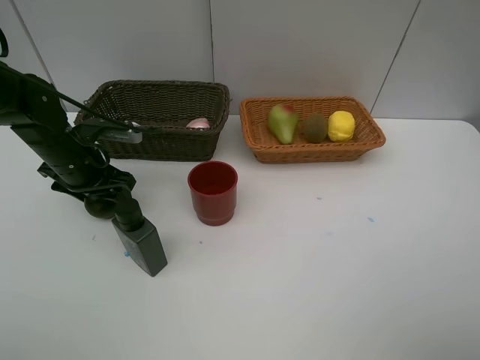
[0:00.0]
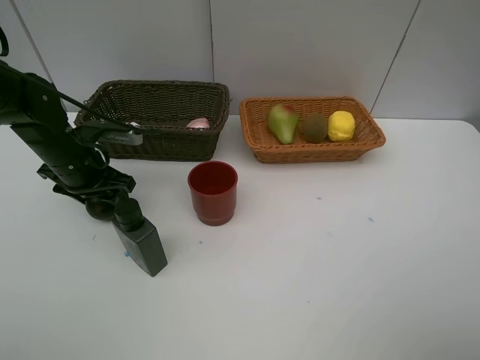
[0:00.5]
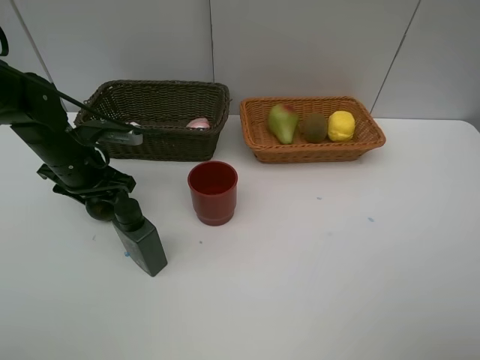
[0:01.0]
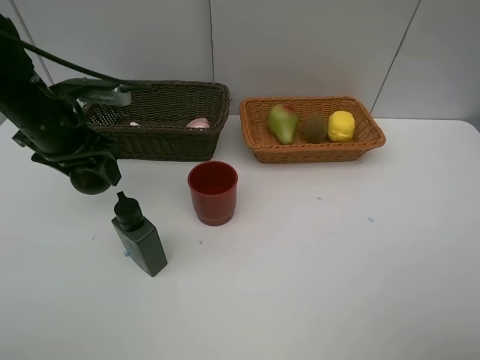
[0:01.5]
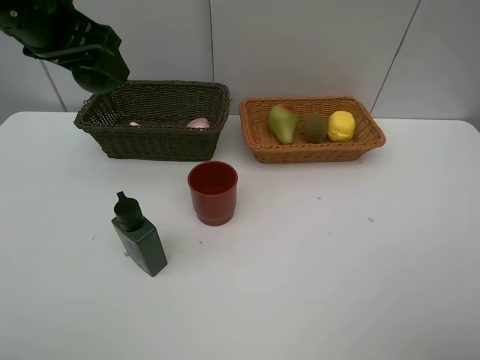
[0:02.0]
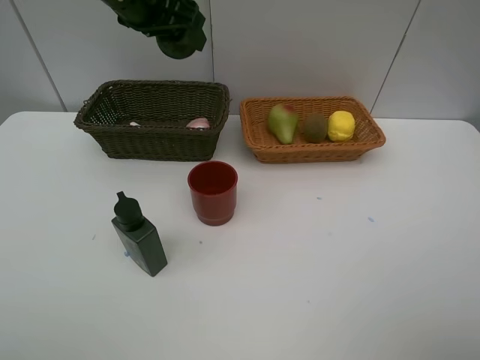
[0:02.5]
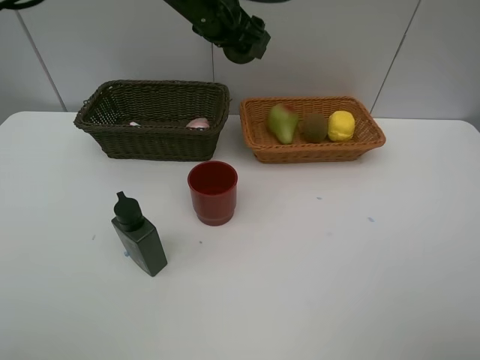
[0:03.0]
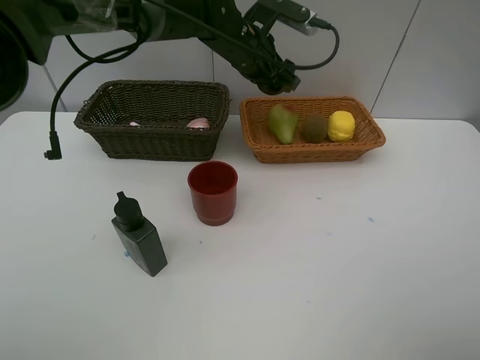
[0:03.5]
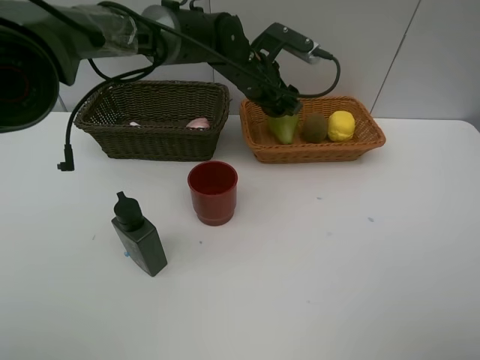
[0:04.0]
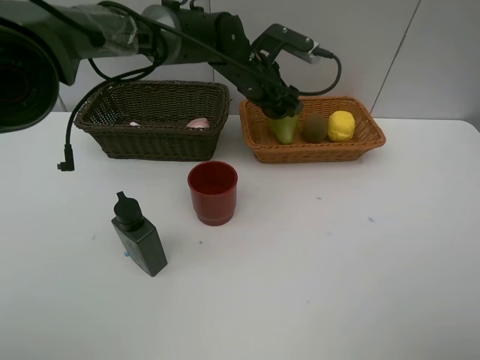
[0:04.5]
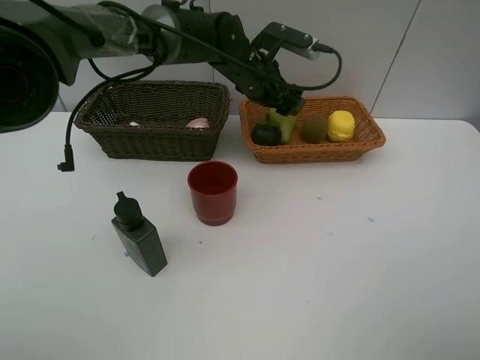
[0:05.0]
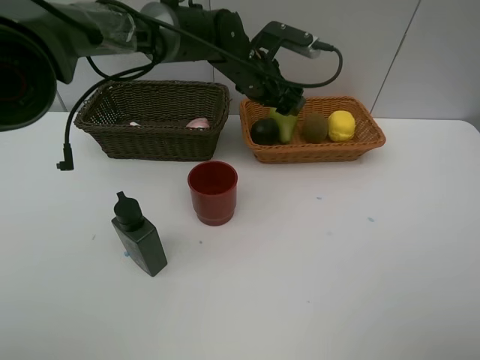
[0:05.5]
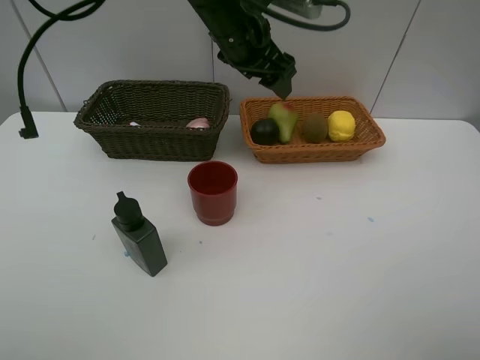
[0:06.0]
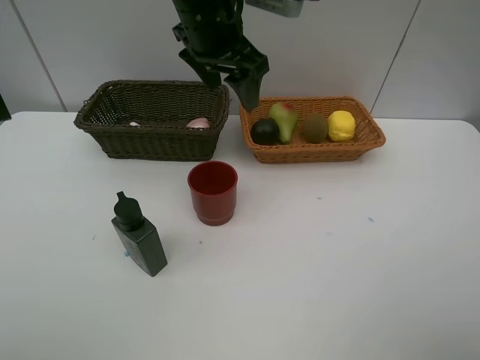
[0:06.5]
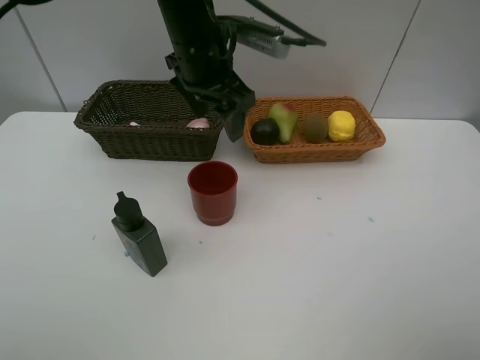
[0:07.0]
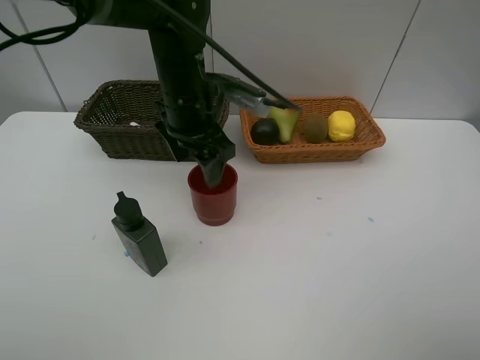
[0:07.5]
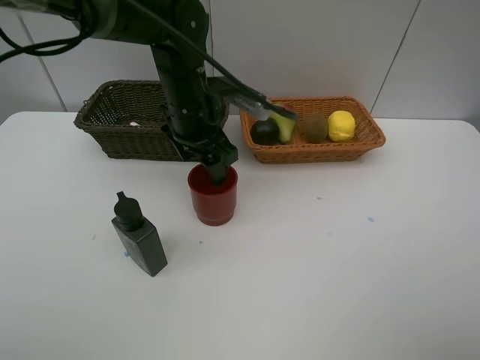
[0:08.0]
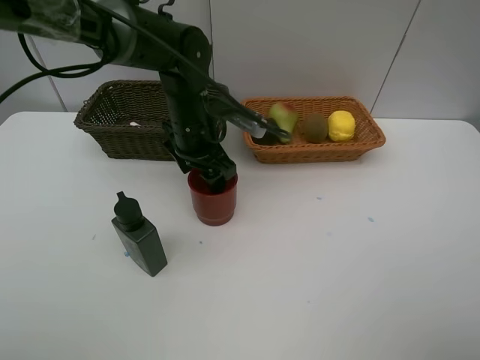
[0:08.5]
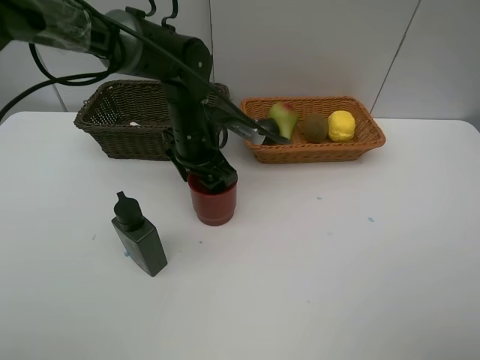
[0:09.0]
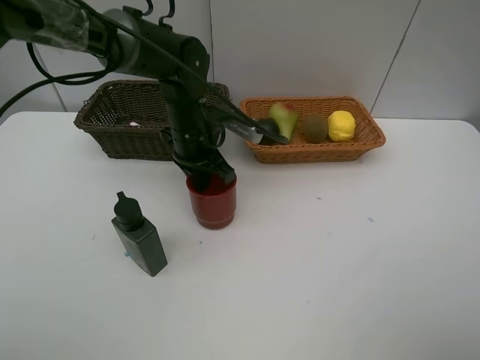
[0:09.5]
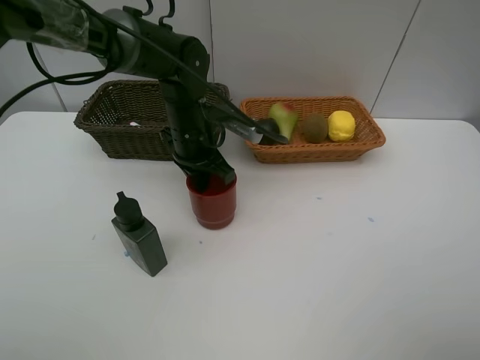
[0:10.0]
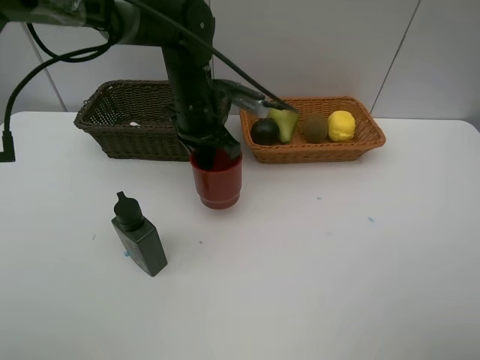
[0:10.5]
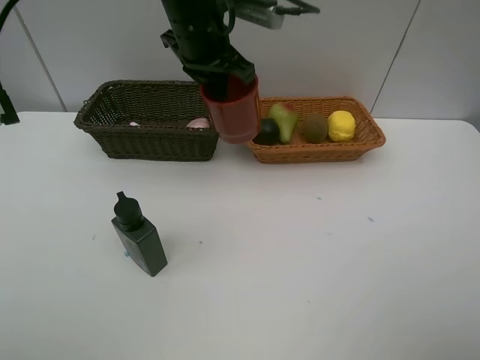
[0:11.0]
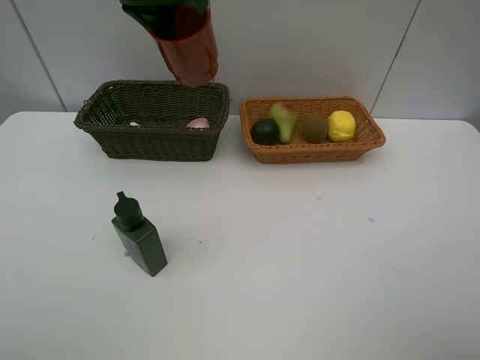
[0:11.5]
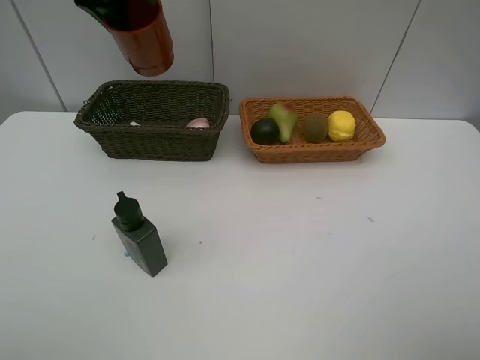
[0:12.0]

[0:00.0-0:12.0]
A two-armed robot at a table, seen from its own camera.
Task of the whole recording: Place multiple objects separately in different baskets.
Step, 0:01.5 to 0:05.0: Place the mangosteen in the light basket with left gripper.
Step, 0:05.5 to 0:10.0: Pick up the dark brown cup with left gripper.
0:00.0 to 0:02.0: The left gripper goes approximately 20 cm upward.
0:02.0 to 0:04.0: The left gripper goes approximately 30 cm to the right, downward and forward.
0:04.0 to 0:06.0: The left gripper heads upward, covering some 10 cm.
0:06.0 to 0:08.0: The left gripper is displaced downward and to the left by roughly 10 cm.
0:08.0 to 0:10.0: The left gripper moves some 5 cm, and closes up.
0:10.0 to 0:12.0: The left gripper heads upward and to the left, covering about 25 cm.

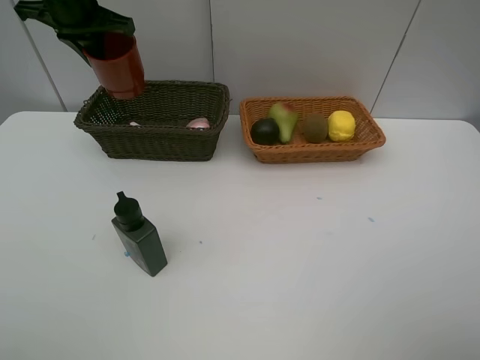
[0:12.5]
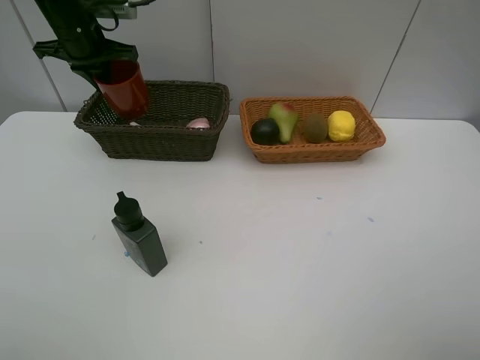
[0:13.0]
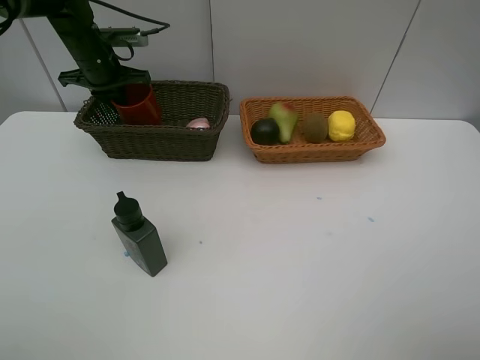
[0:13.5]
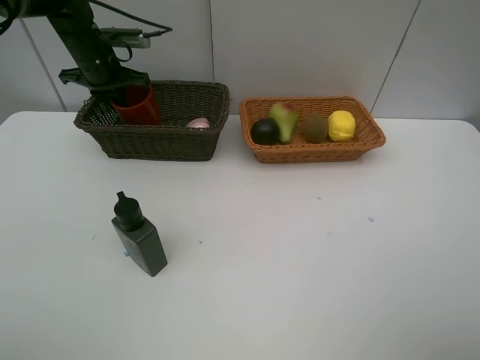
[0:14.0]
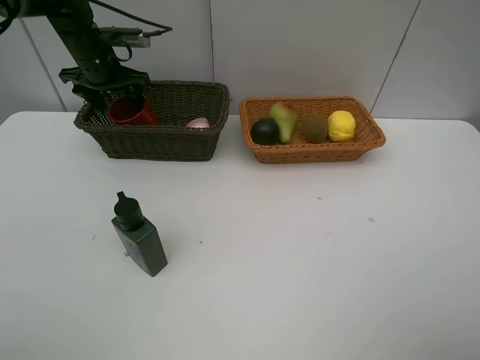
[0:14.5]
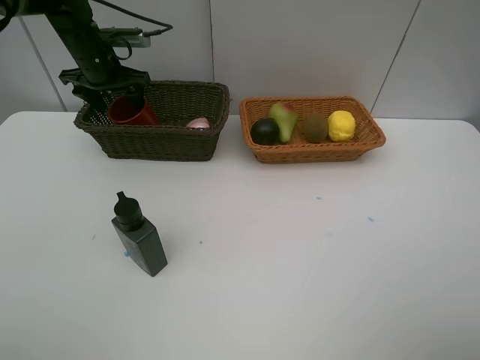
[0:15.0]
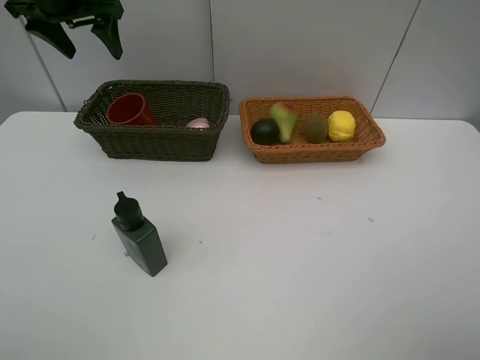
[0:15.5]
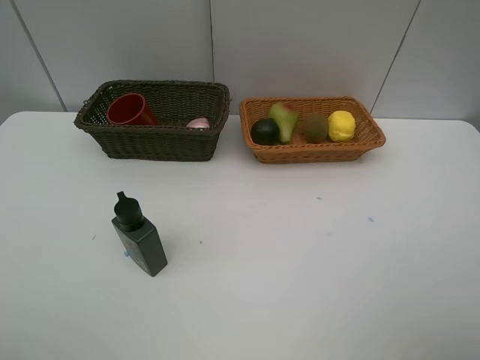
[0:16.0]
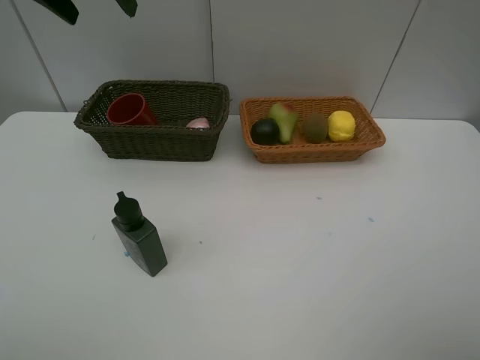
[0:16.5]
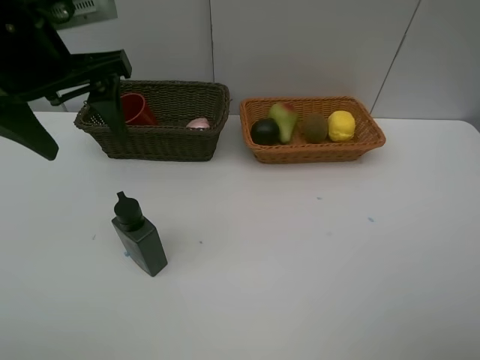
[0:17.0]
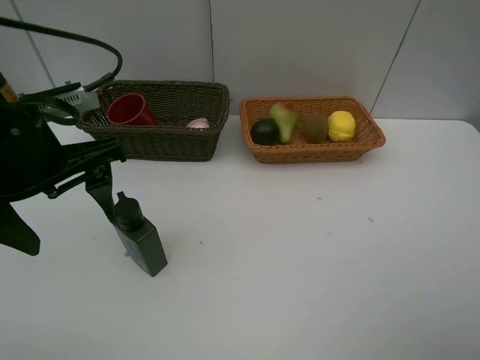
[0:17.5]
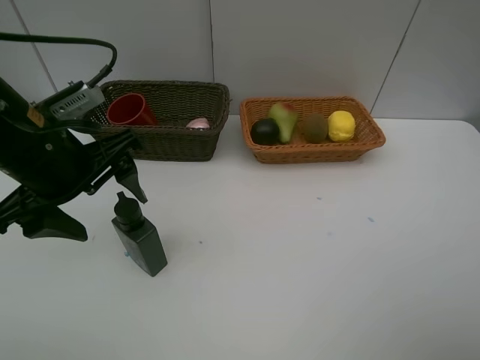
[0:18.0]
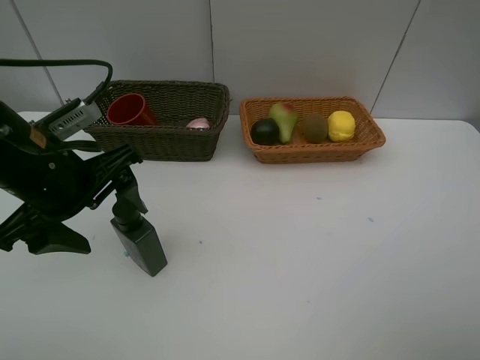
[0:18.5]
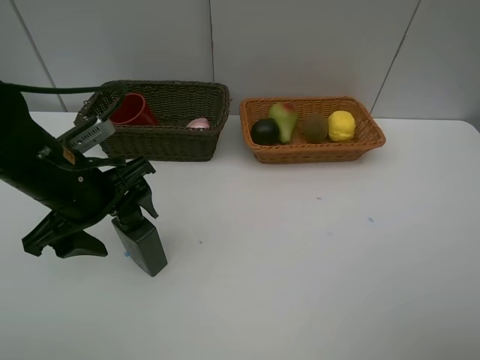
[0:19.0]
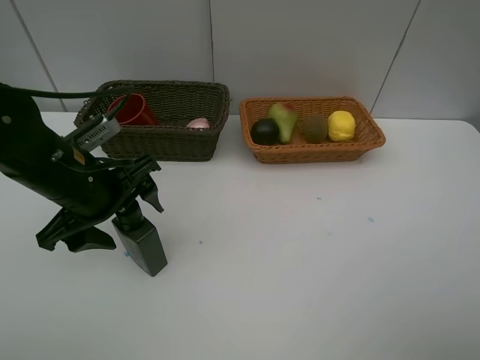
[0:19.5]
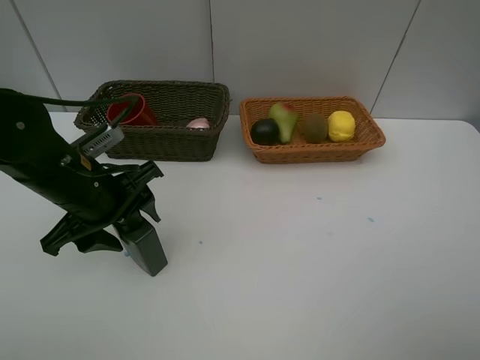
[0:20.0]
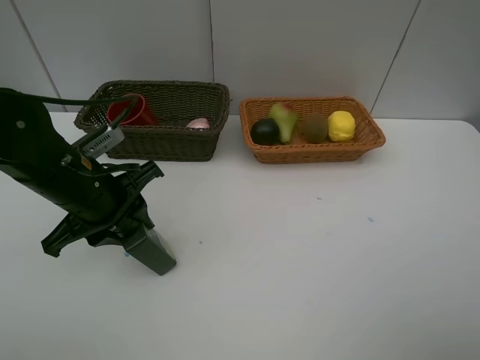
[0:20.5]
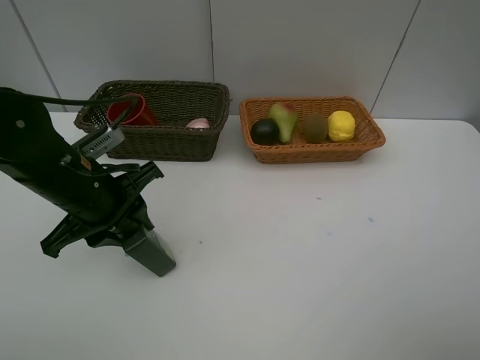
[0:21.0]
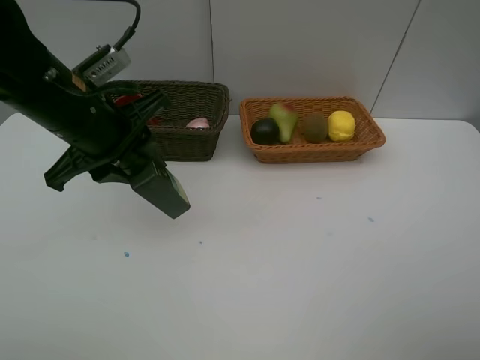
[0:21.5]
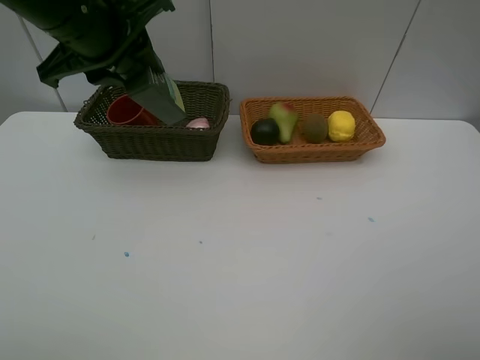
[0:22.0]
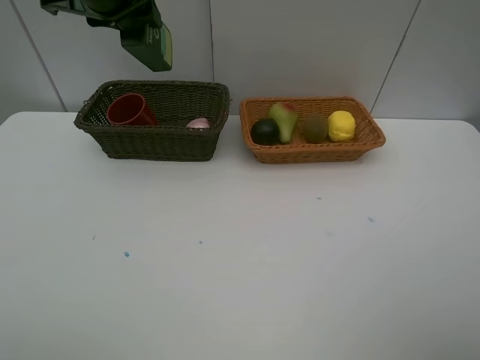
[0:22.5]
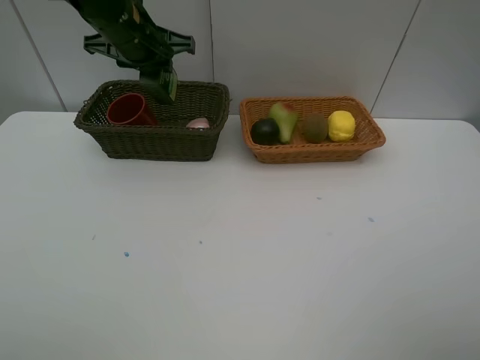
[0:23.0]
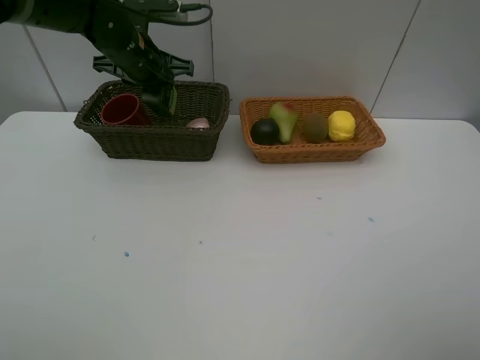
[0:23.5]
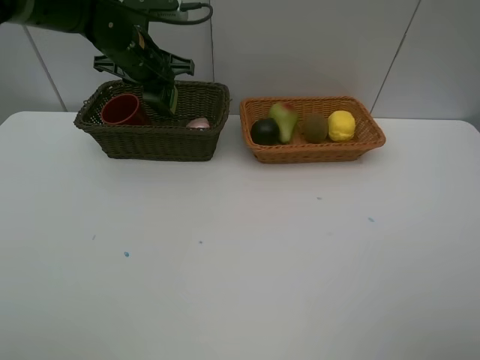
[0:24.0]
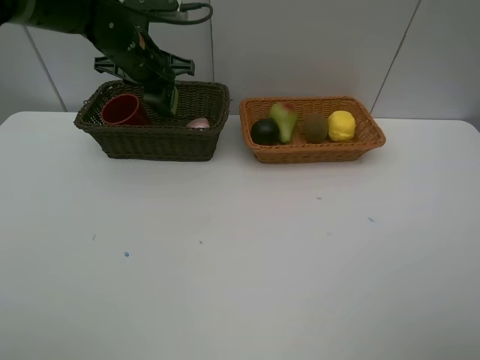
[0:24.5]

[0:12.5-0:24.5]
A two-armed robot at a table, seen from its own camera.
Task of the whole recording: Place multiple objects separately in different baskets.
Step, 0:12.5 to 0:15.0: Place the dark brown cup in the dark basket with left gripper.
Step, 0:15.5 to 0:21.0: Pick up the hard facial cleanser with left gripper.
0:12.5 to 0:14.5: The left gripper shifts approximately 10 cm downward, and opens its fingers.
0:14.5 to 0:16.5: The left gripper goes about 25 cm upward and backward.
0:16.5 to 0:18.5: The left gripper shifts about 25 cm downward and backward.
0:18.5 to 0:20.5: The left gripper goes approximately 5 cm downward, and closes up.
0:20.5 to 0:22.5: The left gripper goes about 20 cm upward and forward.
0:22.5 to 0:24.5: The left gripper heads downward and forward, covering approximately 15 cm.

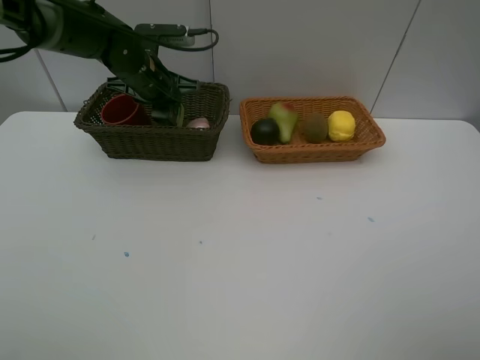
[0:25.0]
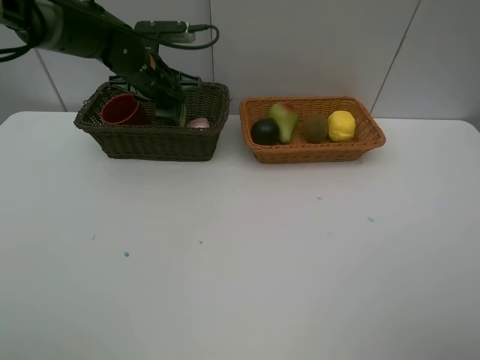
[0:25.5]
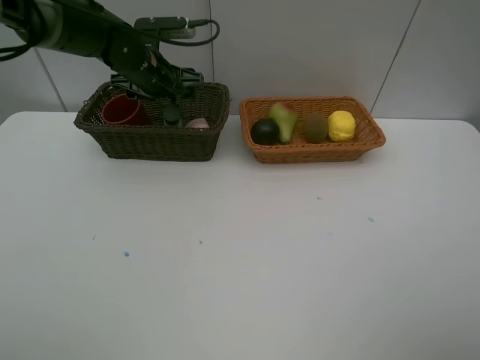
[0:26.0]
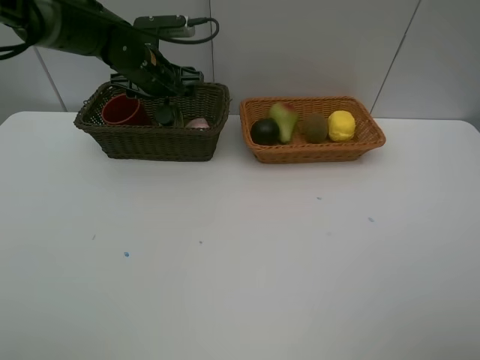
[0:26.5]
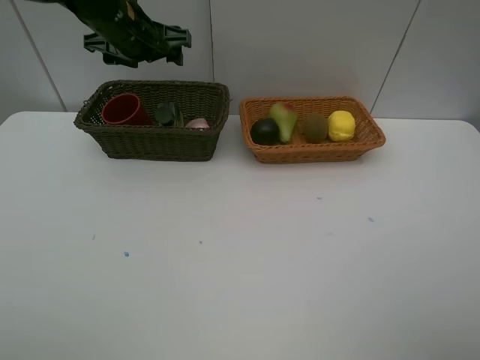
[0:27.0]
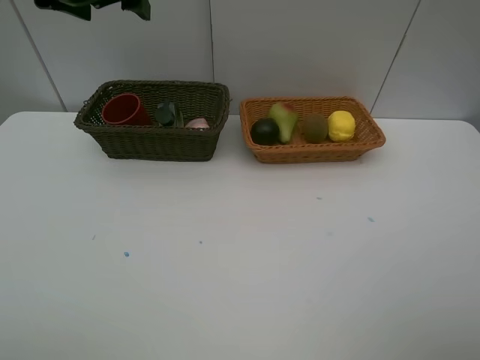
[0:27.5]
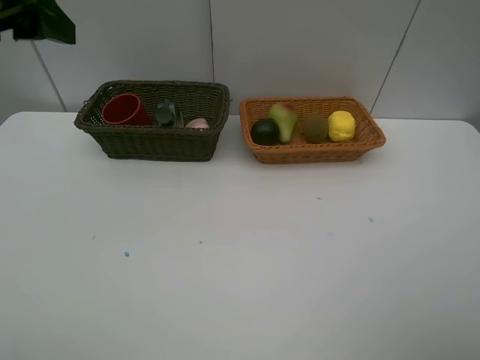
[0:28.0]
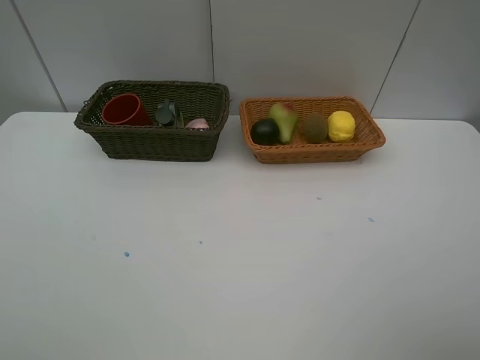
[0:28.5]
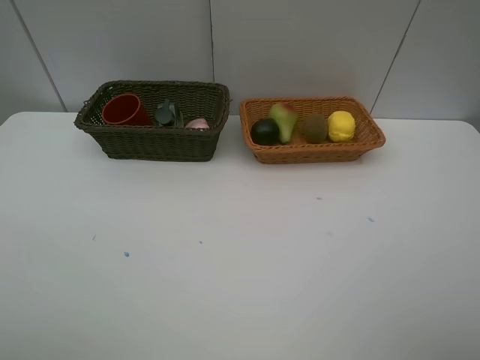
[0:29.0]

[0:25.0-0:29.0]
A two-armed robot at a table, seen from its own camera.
Task of the whole recording: Place multiple objects separately in different baskets.
0:25.0 to 0:27.0: The left gripper goes approximately 10 cm upward, and opens.
0:27.0 to 0:29.0: The left gripper heads backward and to the left, covering approximately 40 cm.
